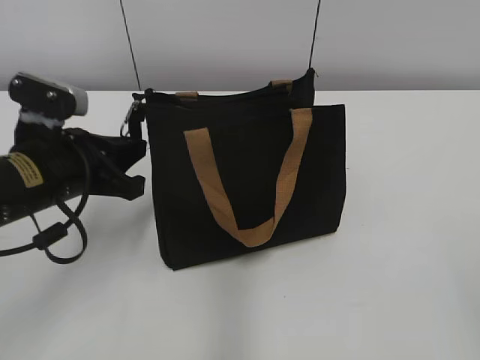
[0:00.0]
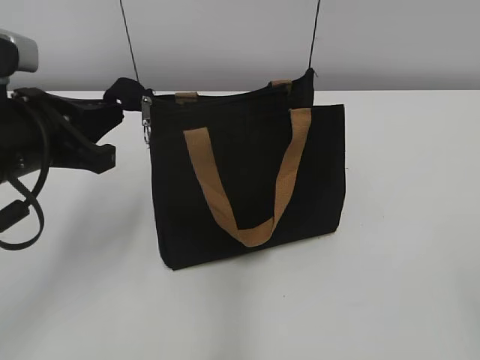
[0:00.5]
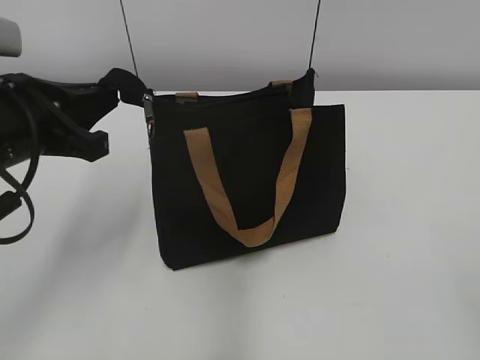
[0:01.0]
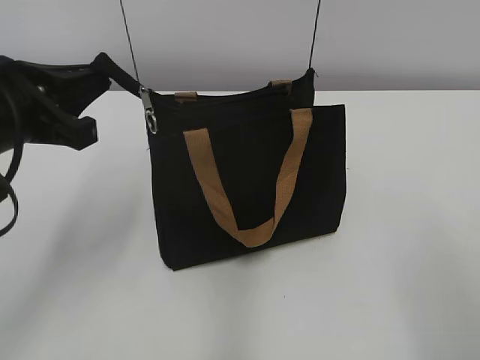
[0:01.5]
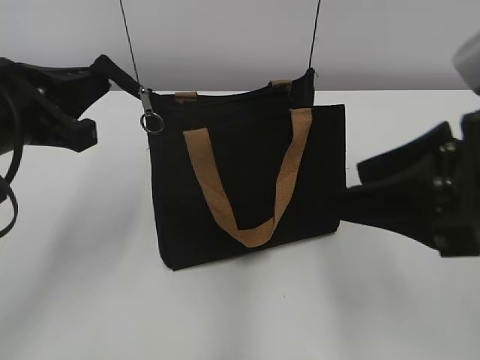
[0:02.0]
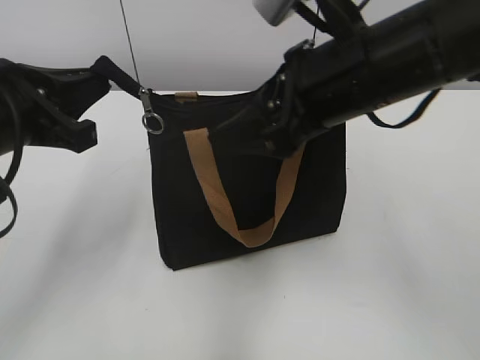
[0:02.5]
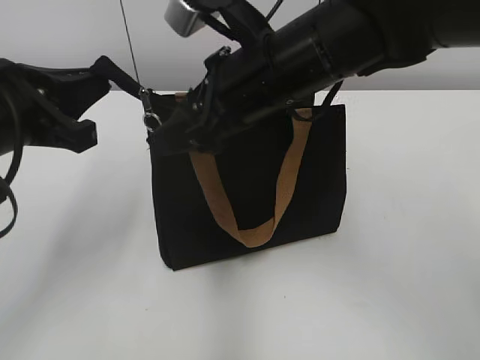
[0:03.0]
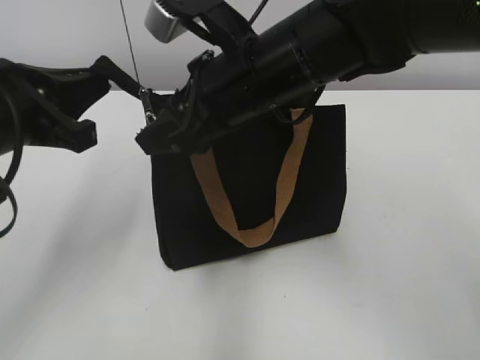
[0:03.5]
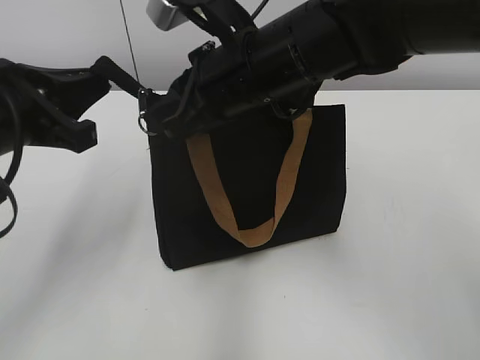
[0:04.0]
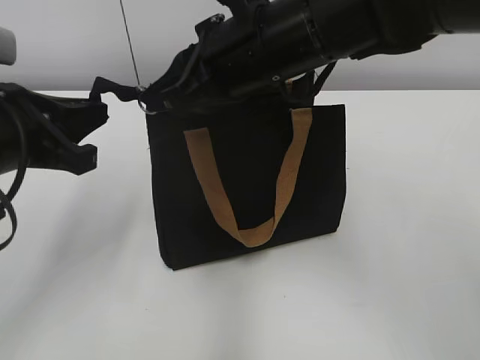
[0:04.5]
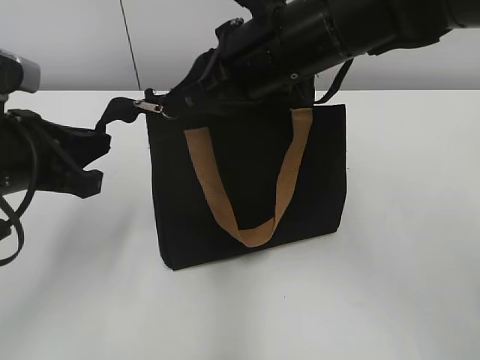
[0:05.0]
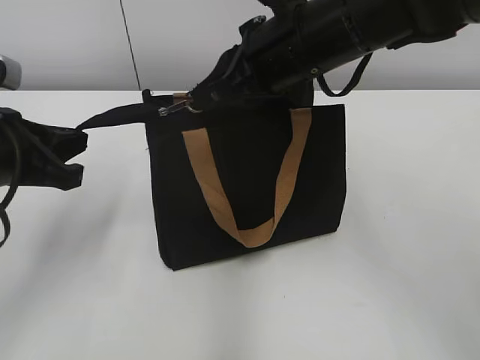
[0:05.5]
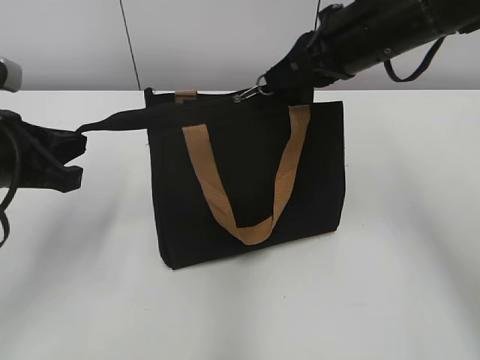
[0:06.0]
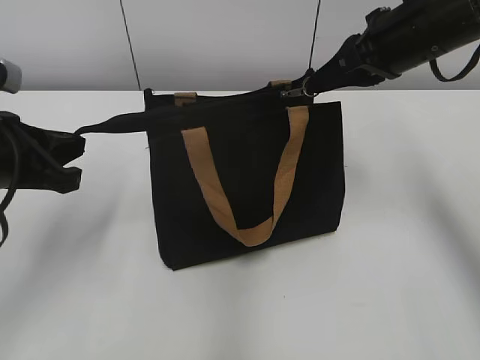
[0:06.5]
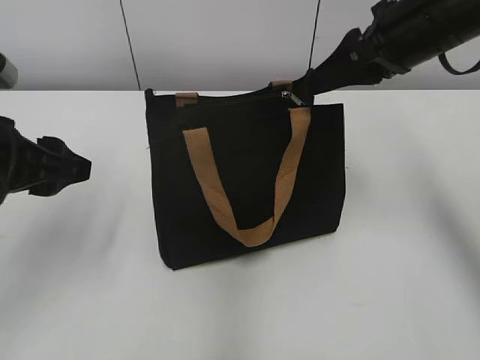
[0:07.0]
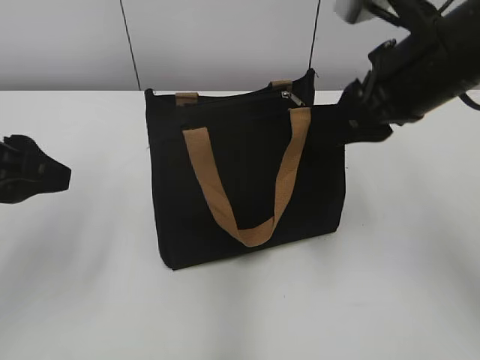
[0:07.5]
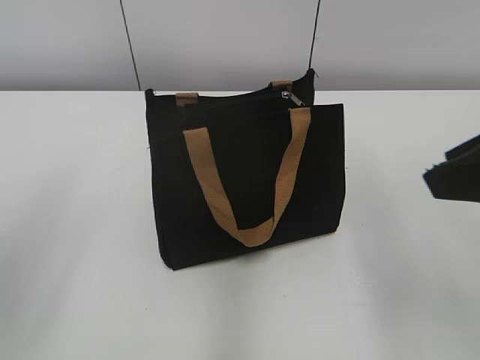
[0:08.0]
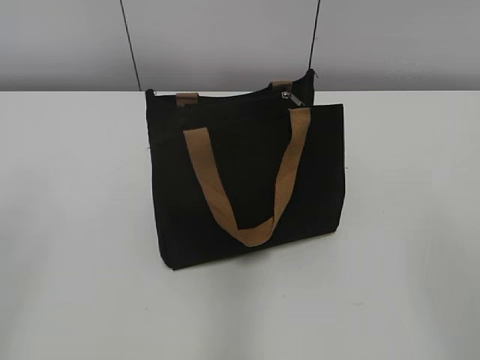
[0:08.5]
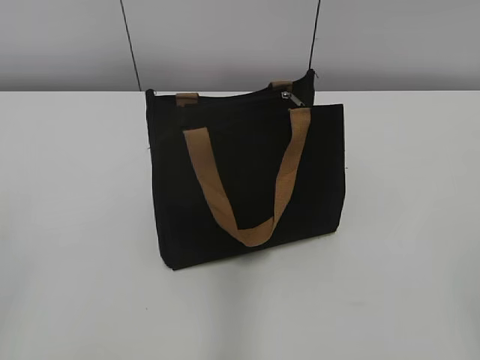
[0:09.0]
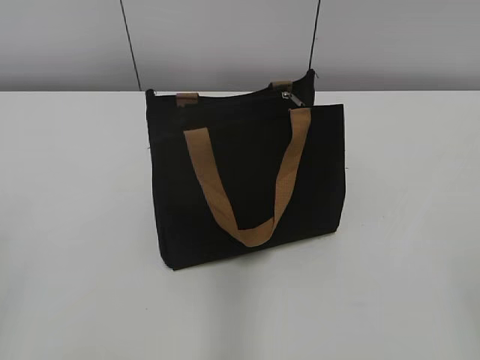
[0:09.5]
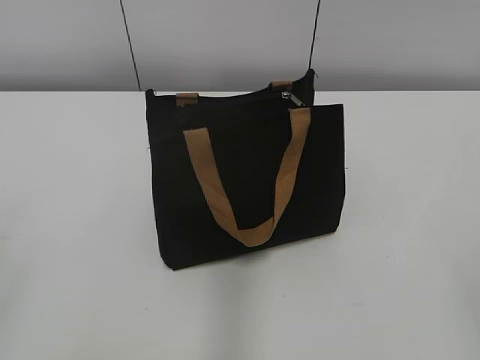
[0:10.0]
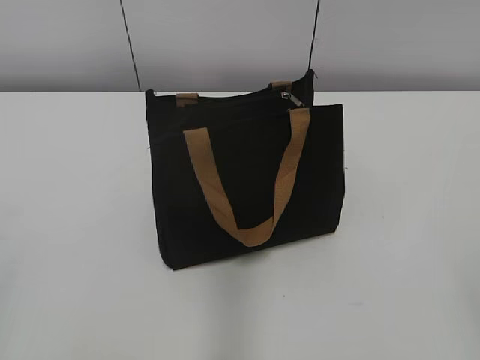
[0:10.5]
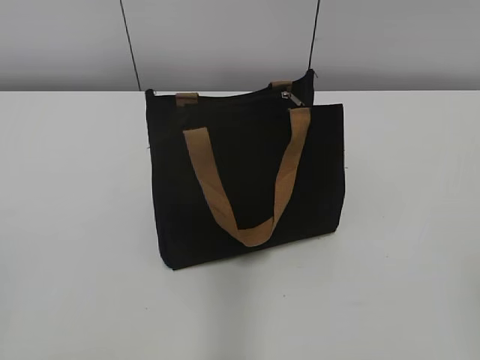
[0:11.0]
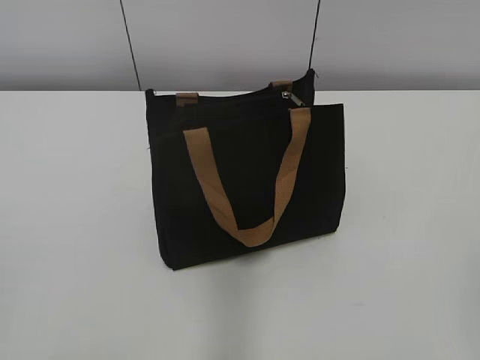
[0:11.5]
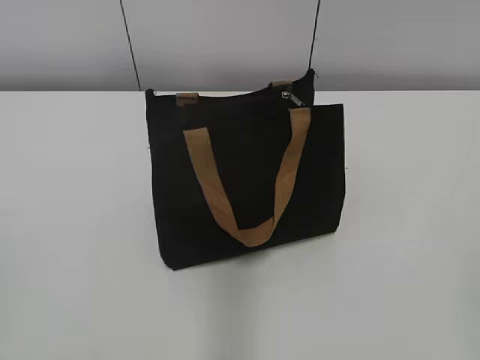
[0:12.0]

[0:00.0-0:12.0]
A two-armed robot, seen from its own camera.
Step, 0:00.0 to 0:06.5: Zip up the bag with your right hand.
0:00.0 to 0:02.0: The right gripper heads forward and to the left, covering roughly 20 cm. The left gripper heads upward, covering some 10 cm.
0:02.0 to 0:04.0: The right gripper moves to the left and forward, some 20 cm, and closes up.
0:04.0 to 0:06.0: The right gripper travels to the right by about 10 cm.
0:06.0 to 0:08.0: The left gripper heads backward and upward, covering some 10 cm, and opens its fingers. Meanwhile the right gripper is displaced backward by approximately 20 cm, and opens.
0:08.0 to 0:10.0: The right gripper goes approximately 20 cm backward and to the right.
